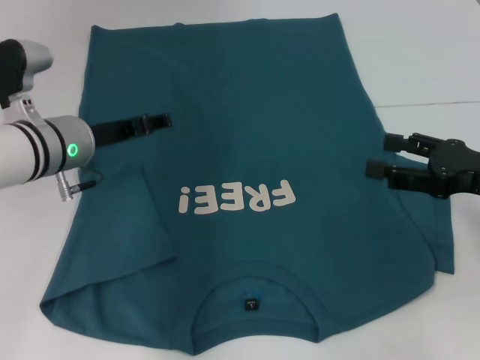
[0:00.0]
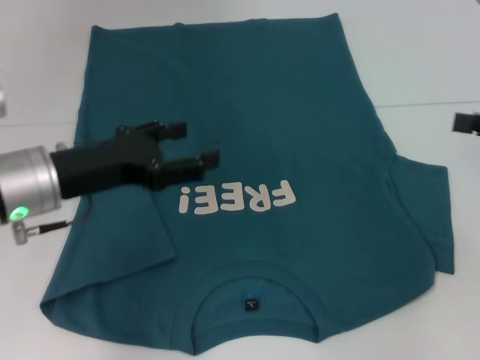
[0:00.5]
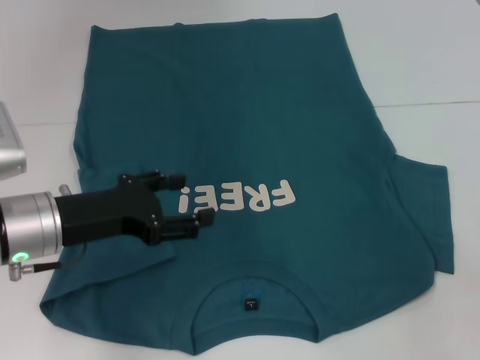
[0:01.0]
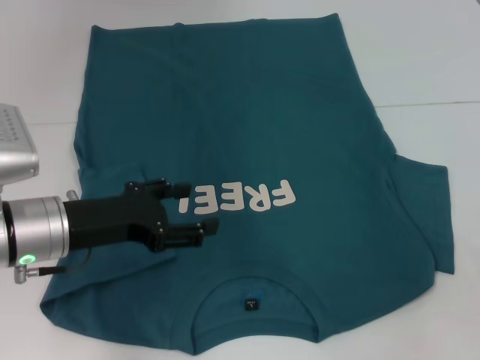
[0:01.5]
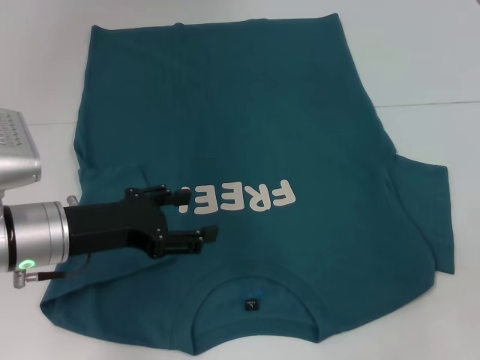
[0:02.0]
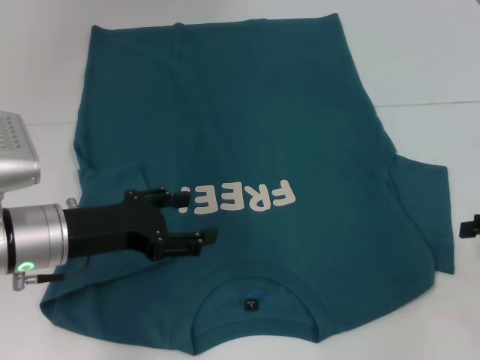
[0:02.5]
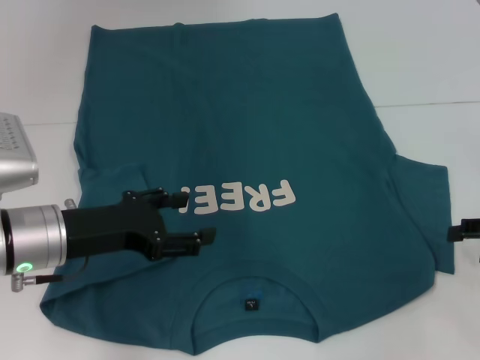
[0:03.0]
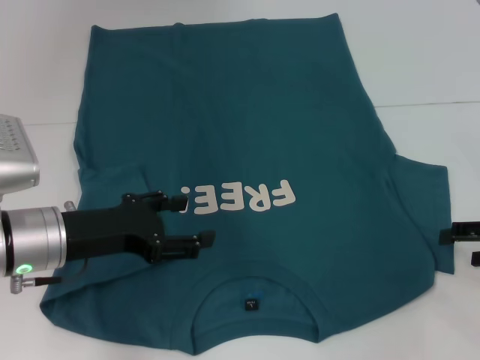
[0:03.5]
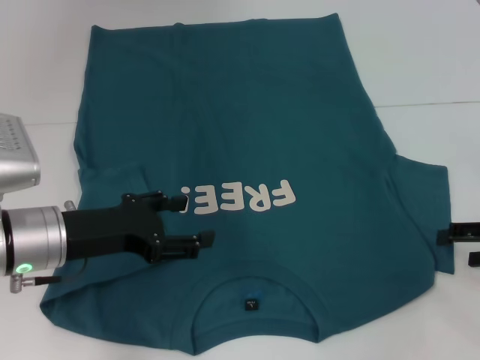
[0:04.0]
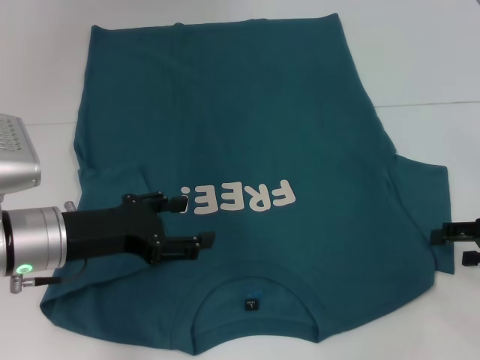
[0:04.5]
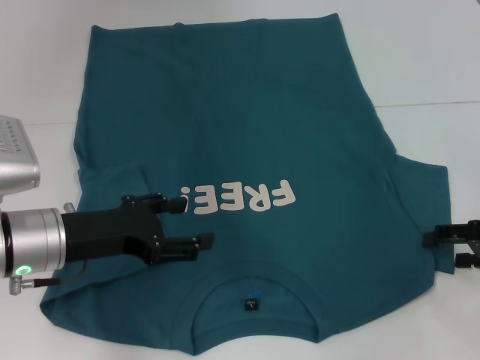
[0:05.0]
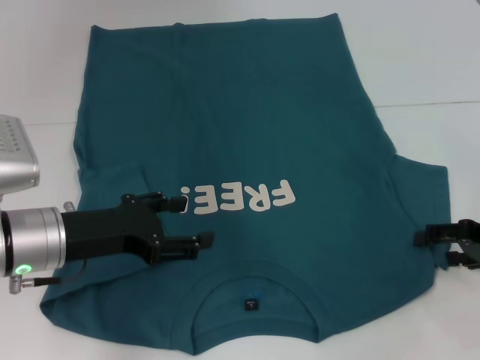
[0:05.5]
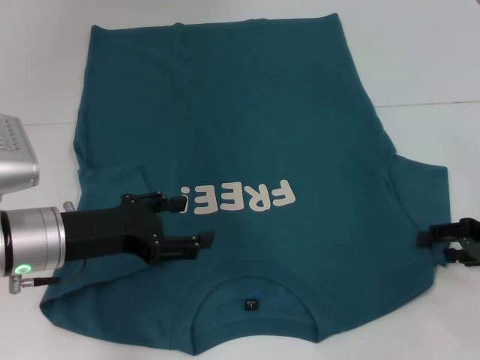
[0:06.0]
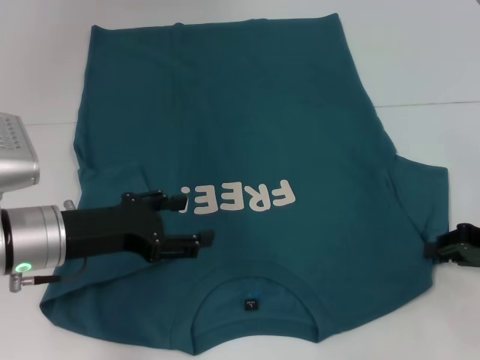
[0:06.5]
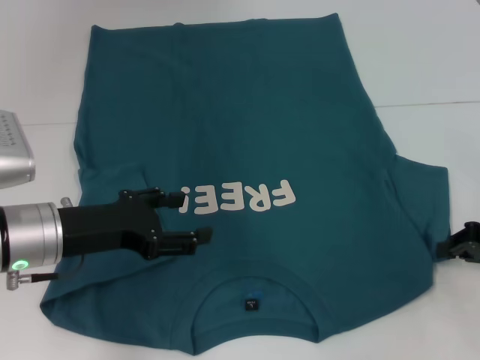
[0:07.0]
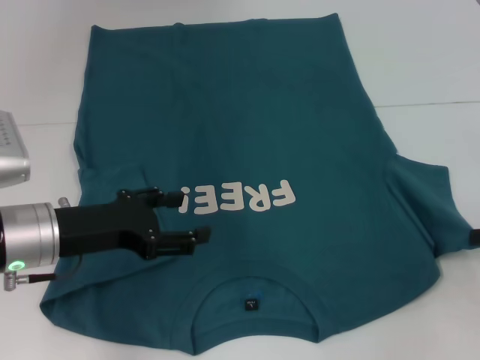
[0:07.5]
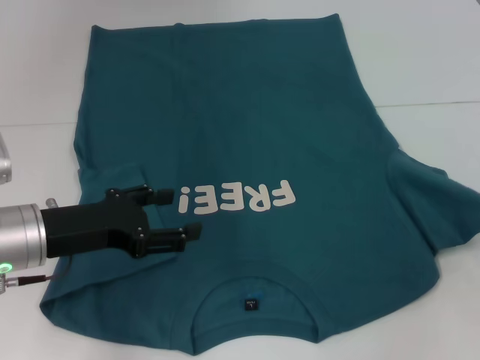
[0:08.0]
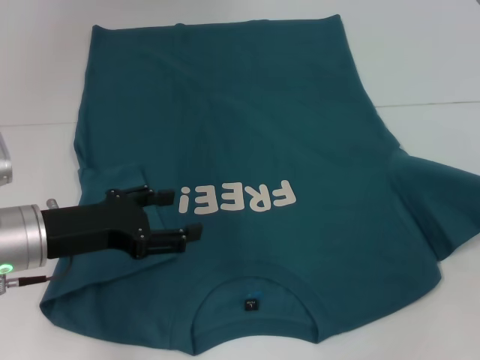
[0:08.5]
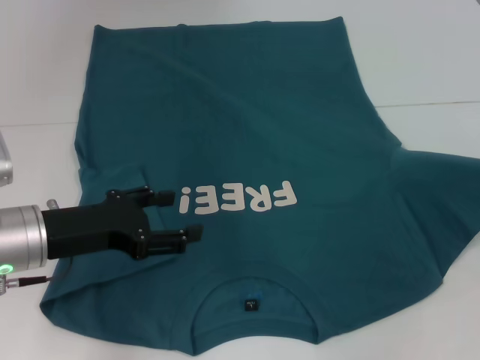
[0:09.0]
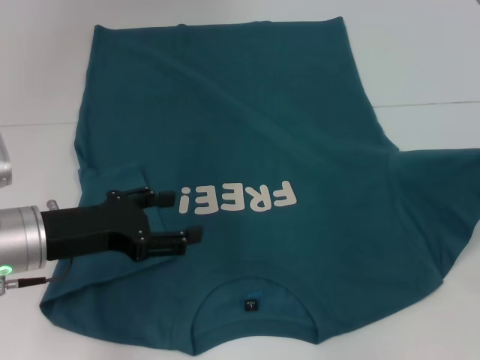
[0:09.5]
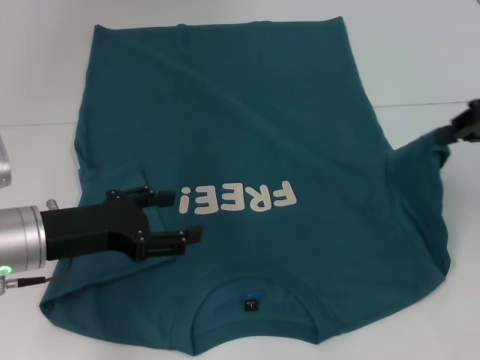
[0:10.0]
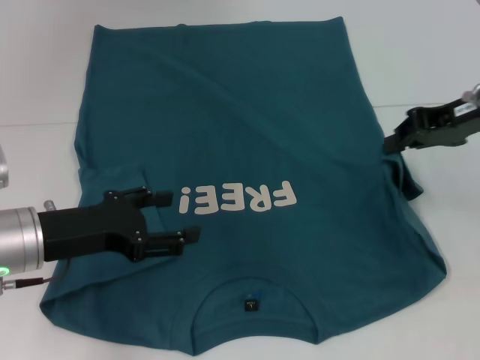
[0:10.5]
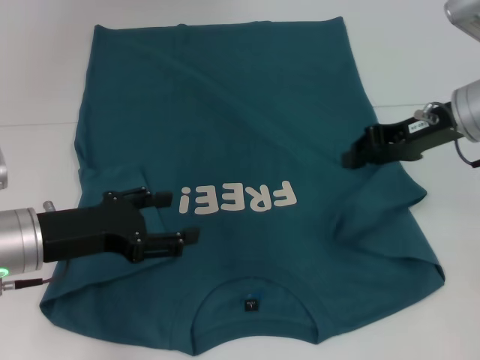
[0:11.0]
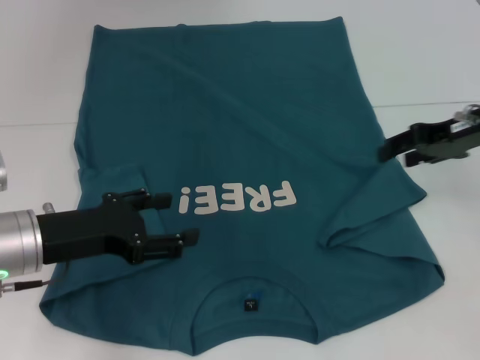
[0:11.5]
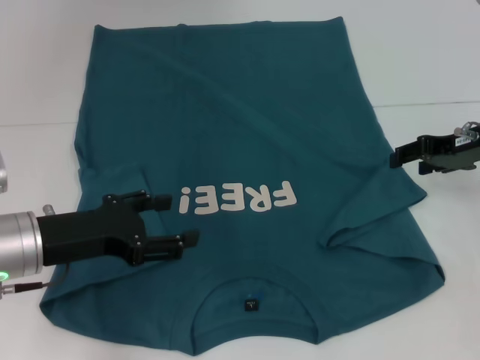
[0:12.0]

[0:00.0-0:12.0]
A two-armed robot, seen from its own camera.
0:00.0 to 0:02.0: The left gripper goes approximately 10 cm backward; the right gripper heads to the right, covering about 10 cm.
0:02.0 to 0:04.0: The right gripper shifts by approximately 5 cm.
0:04.0 to 0:06.0: The grippers move only a little.
0:06.0 to 0:08.0: The right gripper shifts about 10 cm upward and to the right, and closes up.
0:08.0 to 0:10.0: The right gripper heads upward, to the left and forward, covering roughly 15 cm.
0:10.0 to 0:12.0: The right gripper heads downward, covering approximately 10 cm, and opens its fingers.

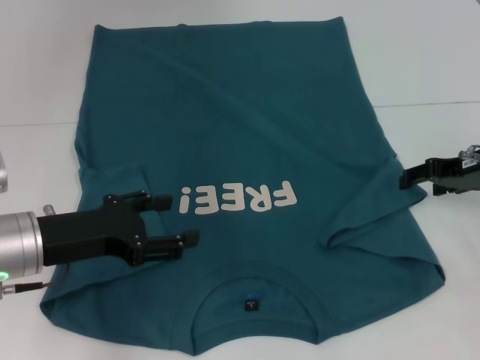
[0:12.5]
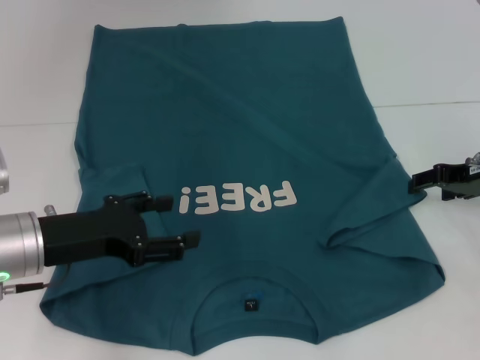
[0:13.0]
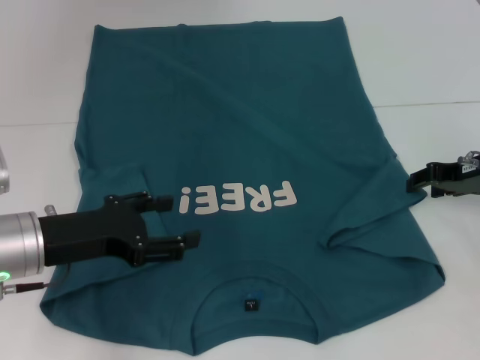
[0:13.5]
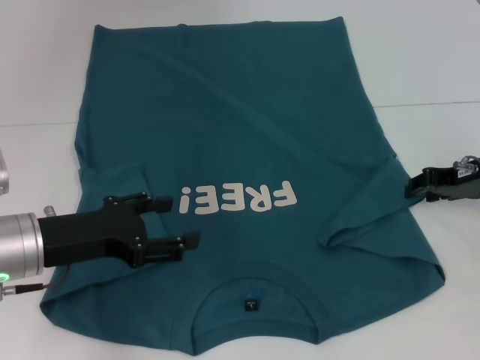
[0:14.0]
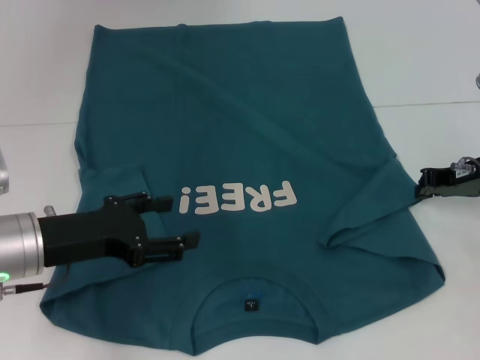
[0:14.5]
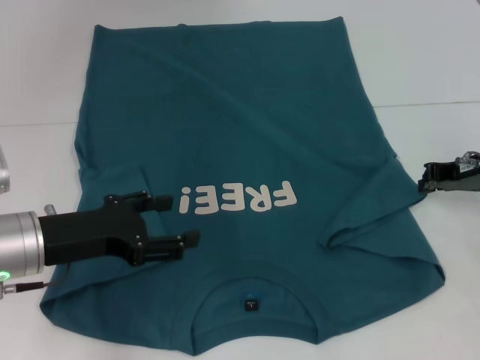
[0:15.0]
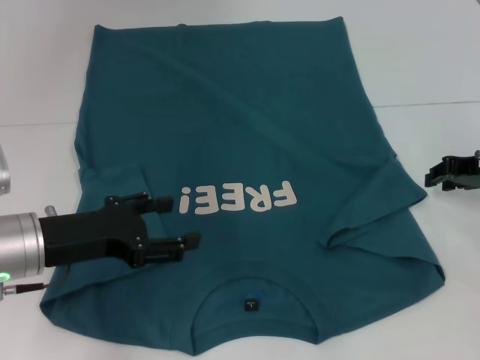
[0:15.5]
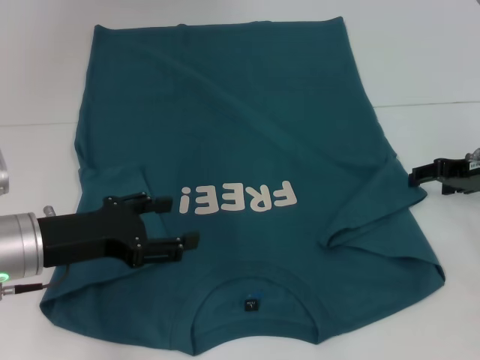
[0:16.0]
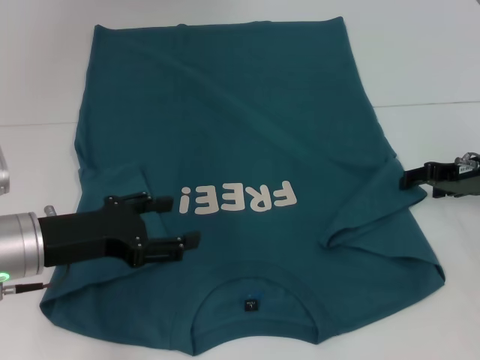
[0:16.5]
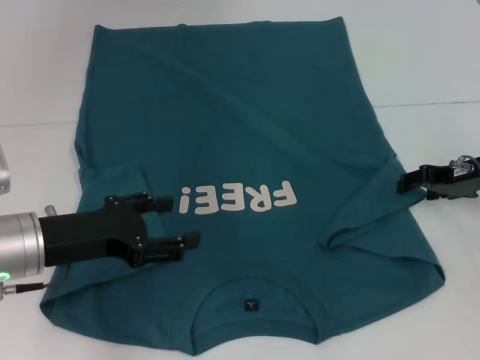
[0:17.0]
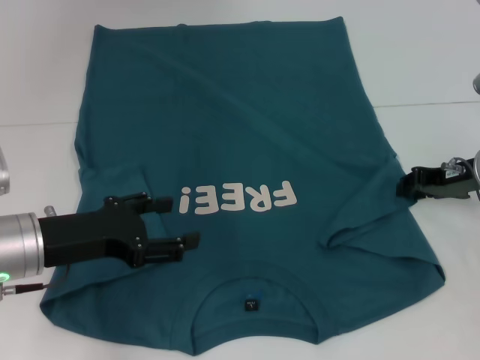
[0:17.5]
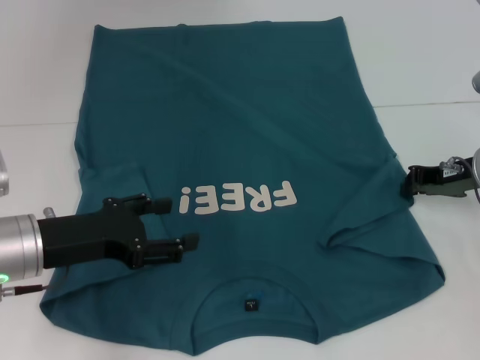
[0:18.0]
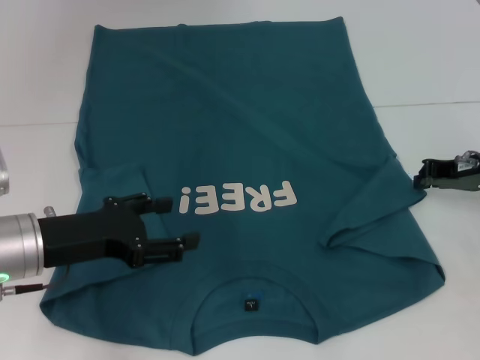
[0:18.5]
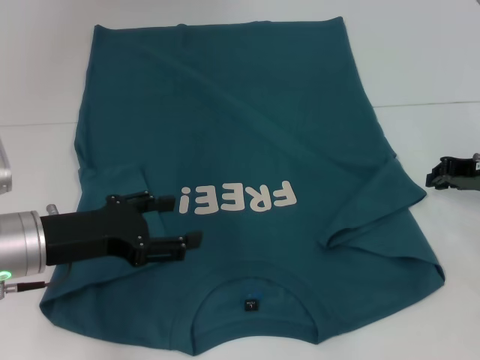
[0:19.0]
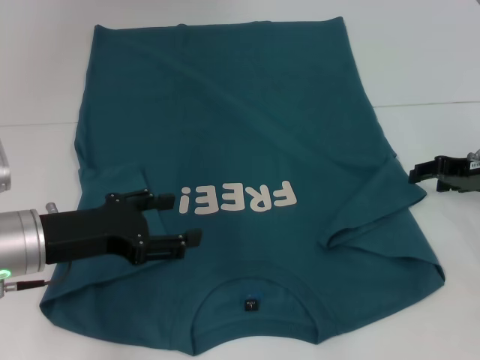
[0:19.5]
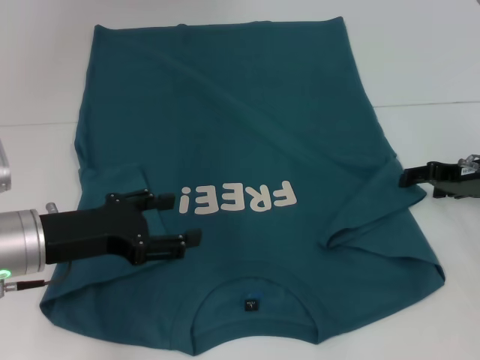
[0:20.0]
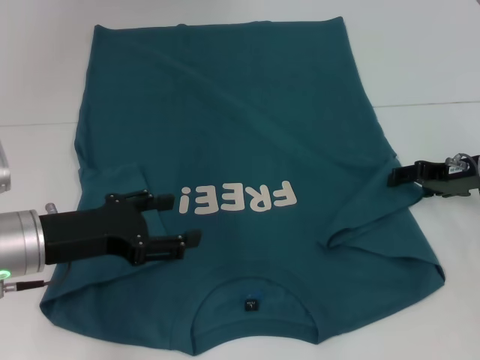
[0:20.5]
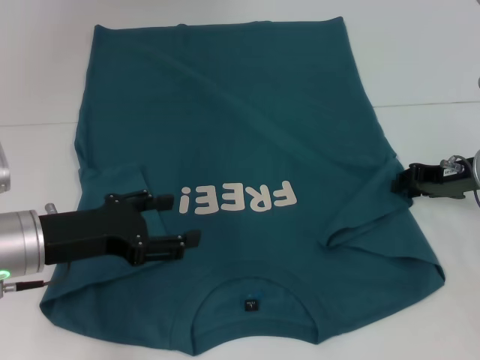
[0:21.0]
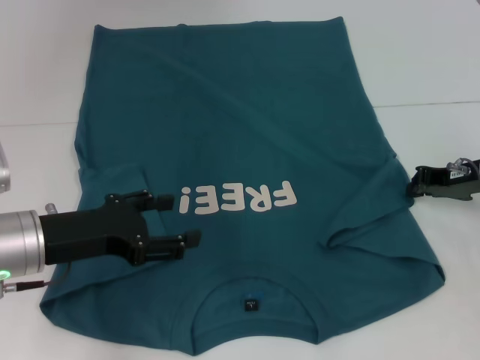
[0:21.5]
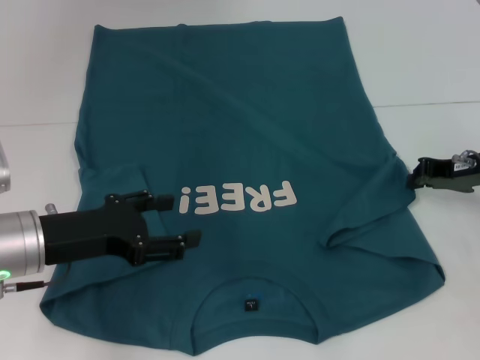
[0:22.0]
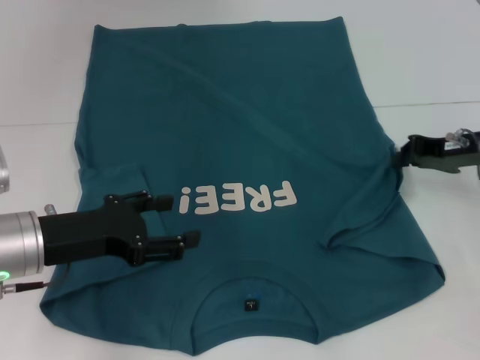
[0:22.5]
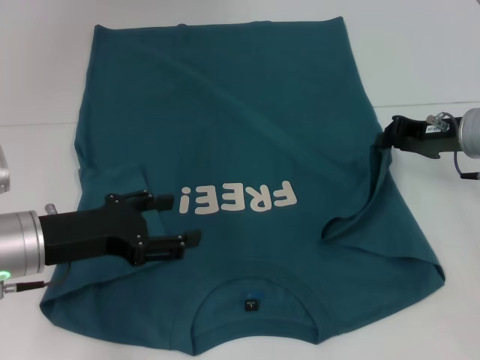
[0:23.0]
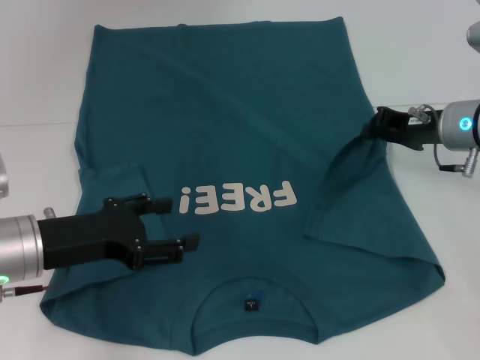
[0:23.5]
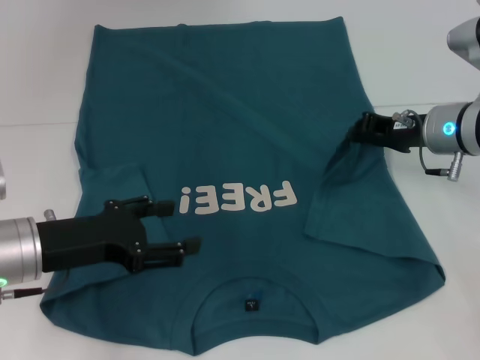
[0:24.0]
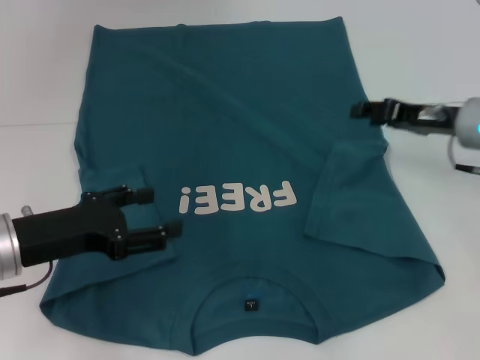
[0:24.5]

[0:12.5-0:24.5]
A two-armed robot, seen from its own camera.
Step, 0:12.5 to 0:24.5: Fold the bottom right sleeve to the right.
0:12.5 to 0:14.5: The right gripper closes its fingers.
0:14.5 to 0:16.5: The right gripper opens up.
0:16.5 to 0:18.5: The right gripper closes up.
0:18.5 to 0:20.5: The right gripper opens its fingers.
0:20.5 to 0:22.5: The right gripper closes its fingers.
0:22.5 to 0:24.5: The right gripper opens up.

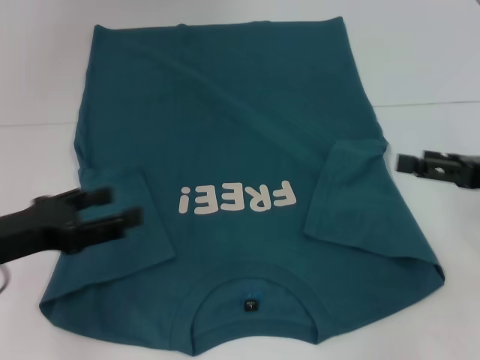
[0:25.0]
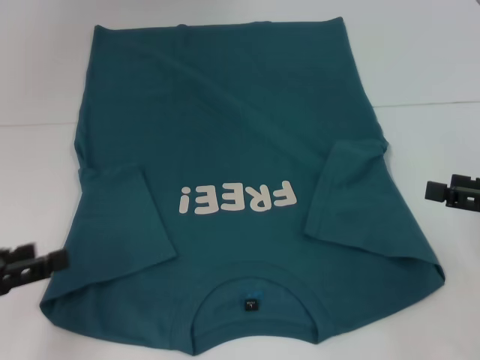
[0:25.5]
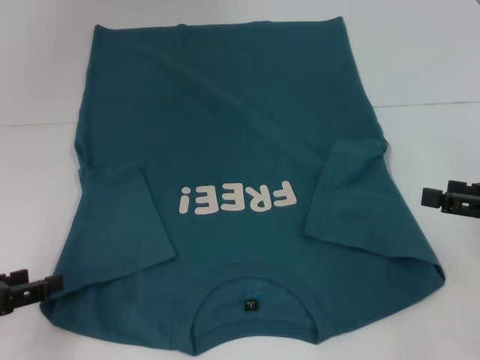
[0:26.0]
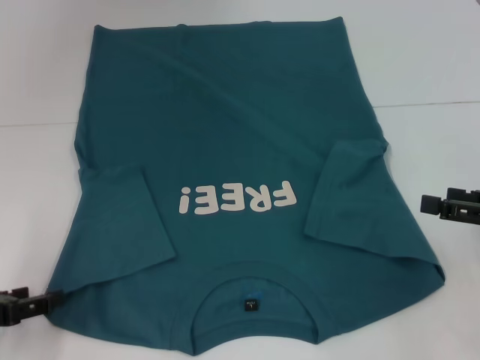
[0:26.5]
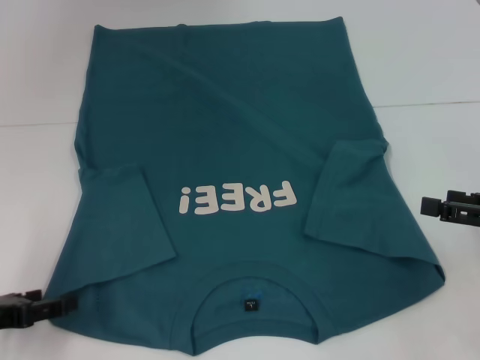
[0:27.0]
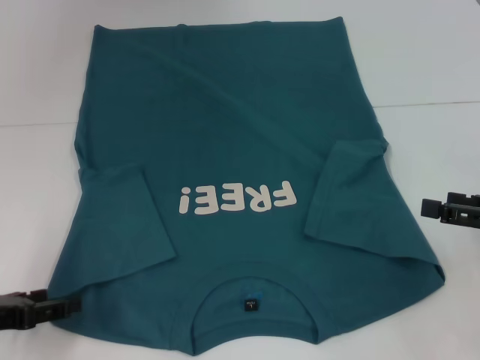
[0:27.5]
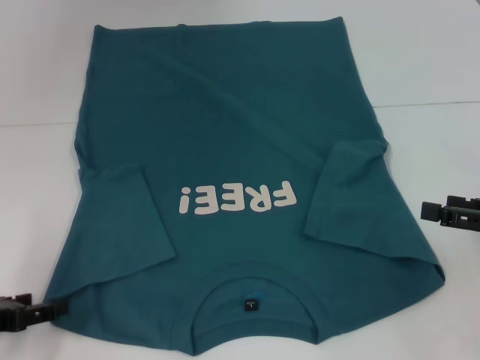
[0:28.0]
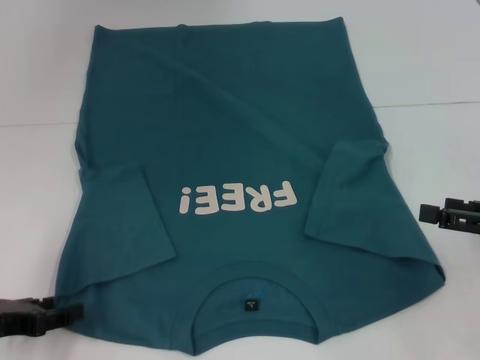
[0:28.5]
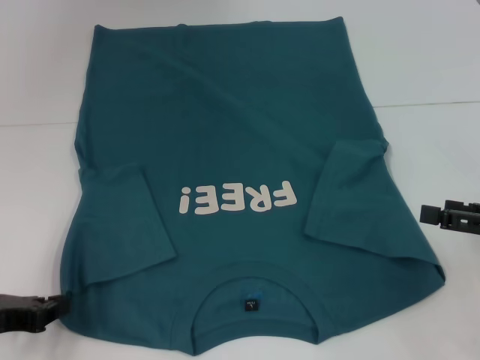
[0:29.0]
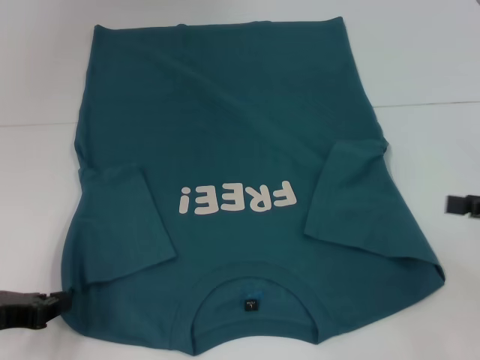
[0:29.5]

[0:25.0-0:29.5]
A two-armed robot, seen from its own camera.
0:25.0 to 0:27.0: The left gripper moves downward, about 5 cm.
0:27.0 to 0:29.5: The left gripper closes up.
